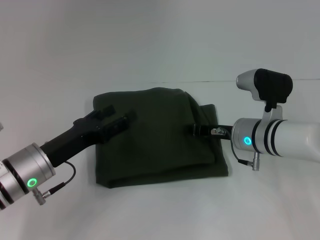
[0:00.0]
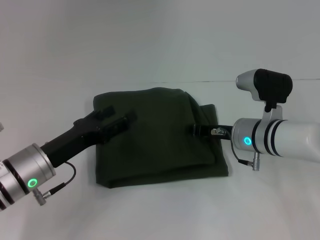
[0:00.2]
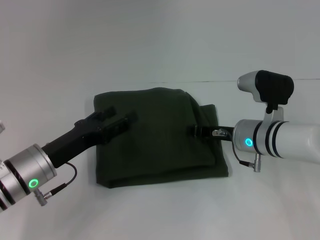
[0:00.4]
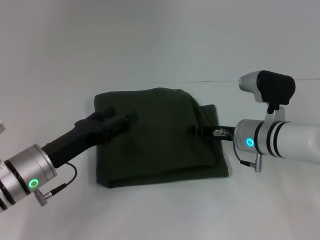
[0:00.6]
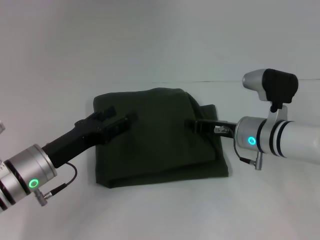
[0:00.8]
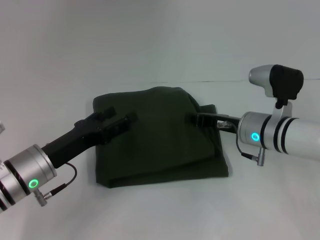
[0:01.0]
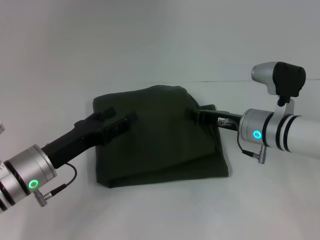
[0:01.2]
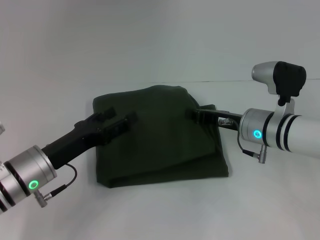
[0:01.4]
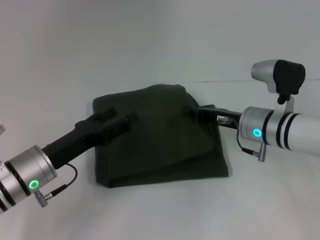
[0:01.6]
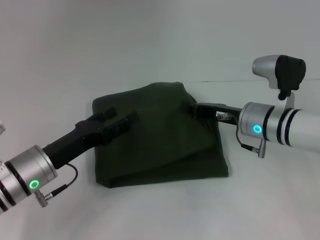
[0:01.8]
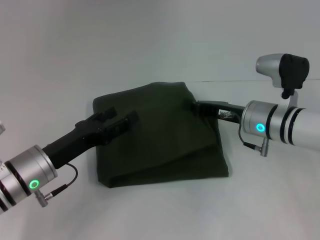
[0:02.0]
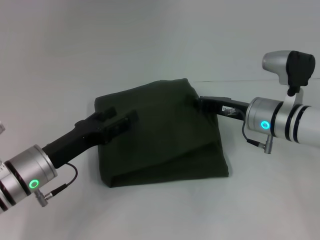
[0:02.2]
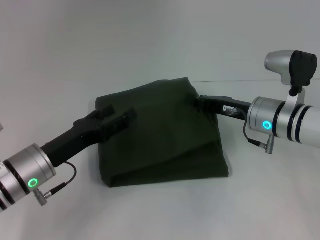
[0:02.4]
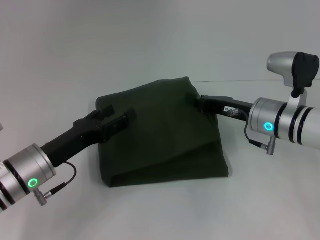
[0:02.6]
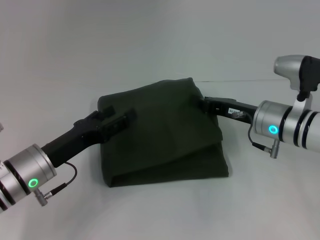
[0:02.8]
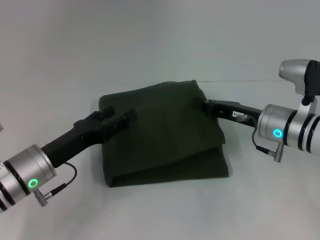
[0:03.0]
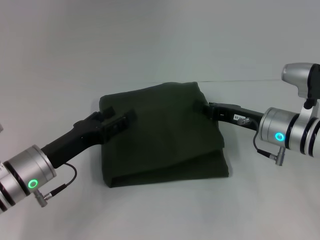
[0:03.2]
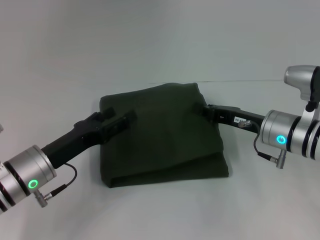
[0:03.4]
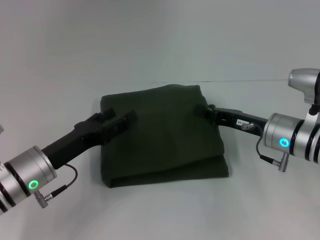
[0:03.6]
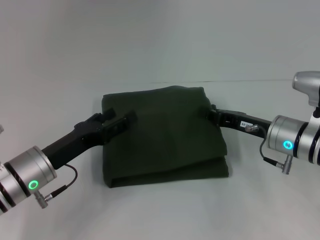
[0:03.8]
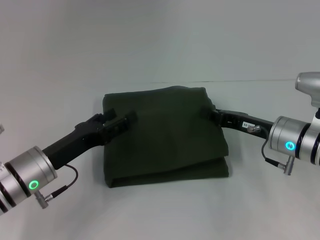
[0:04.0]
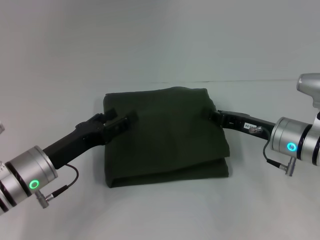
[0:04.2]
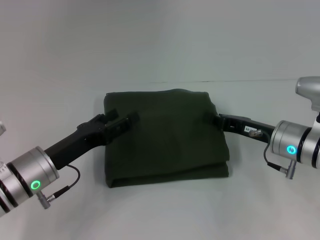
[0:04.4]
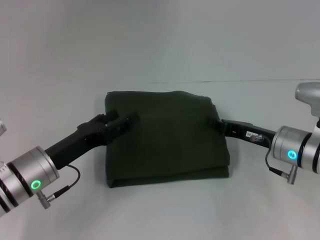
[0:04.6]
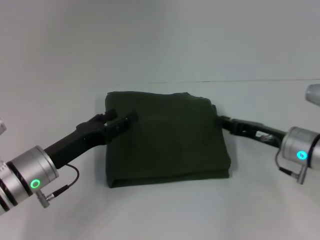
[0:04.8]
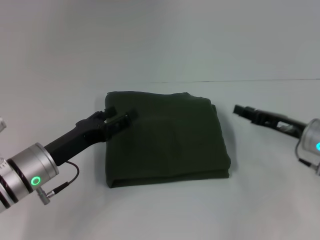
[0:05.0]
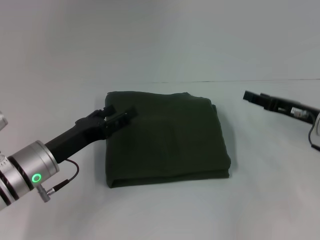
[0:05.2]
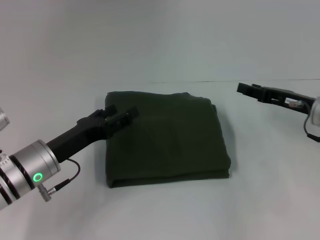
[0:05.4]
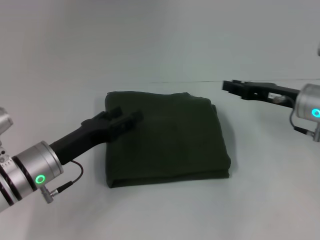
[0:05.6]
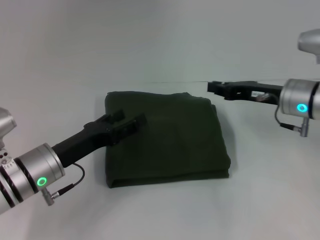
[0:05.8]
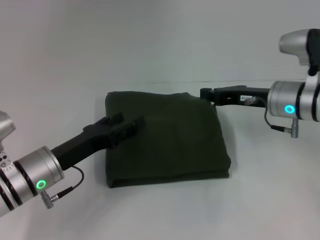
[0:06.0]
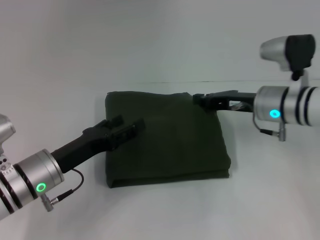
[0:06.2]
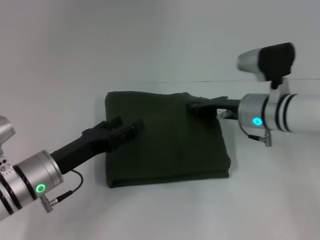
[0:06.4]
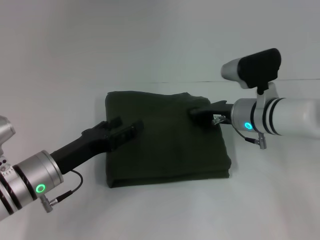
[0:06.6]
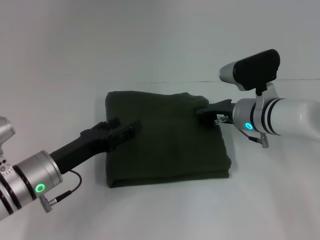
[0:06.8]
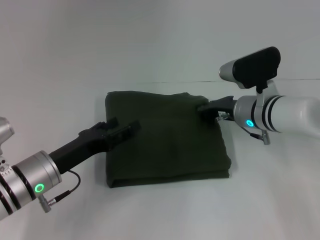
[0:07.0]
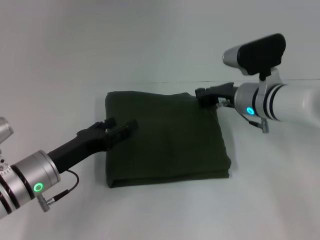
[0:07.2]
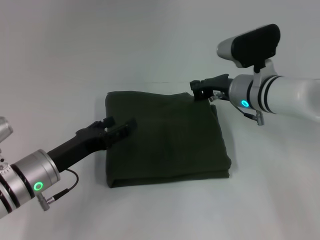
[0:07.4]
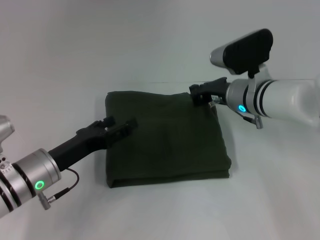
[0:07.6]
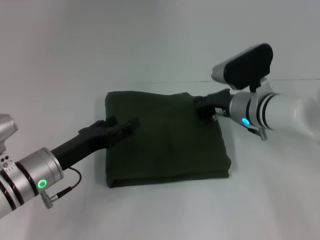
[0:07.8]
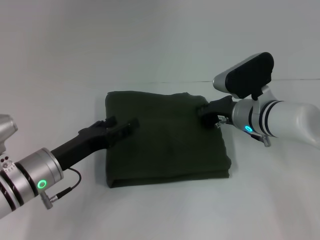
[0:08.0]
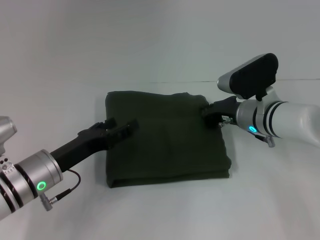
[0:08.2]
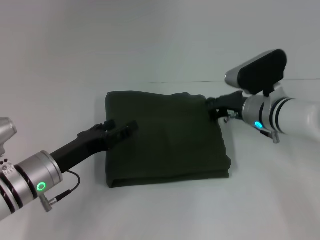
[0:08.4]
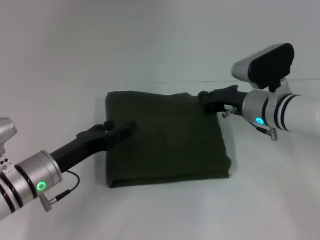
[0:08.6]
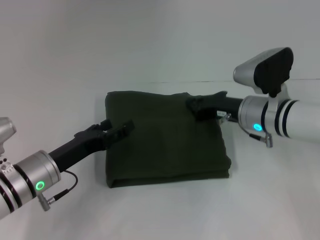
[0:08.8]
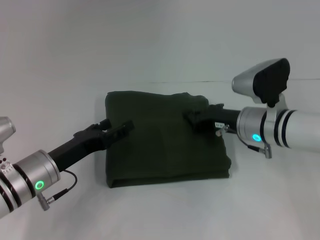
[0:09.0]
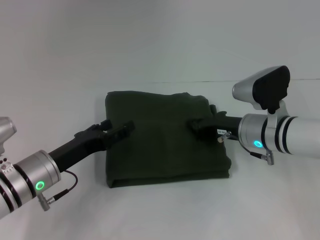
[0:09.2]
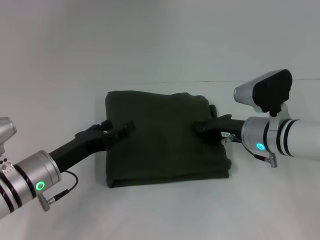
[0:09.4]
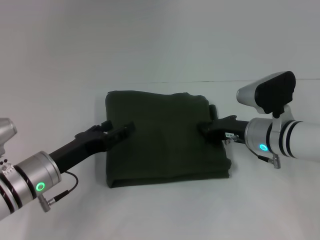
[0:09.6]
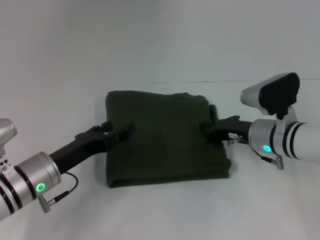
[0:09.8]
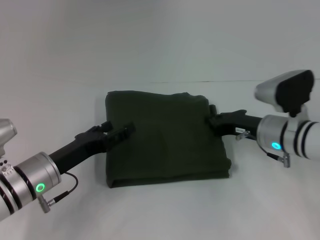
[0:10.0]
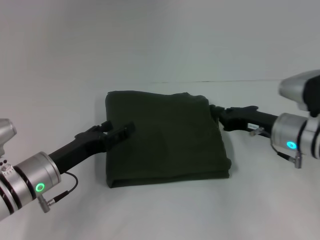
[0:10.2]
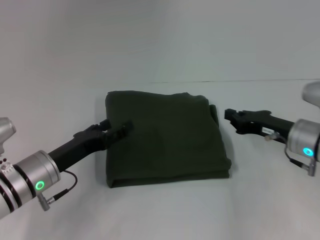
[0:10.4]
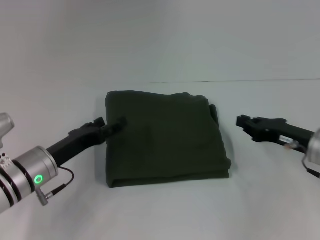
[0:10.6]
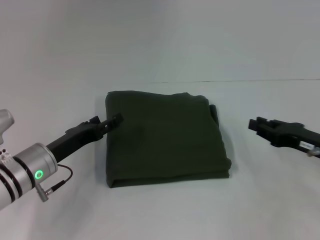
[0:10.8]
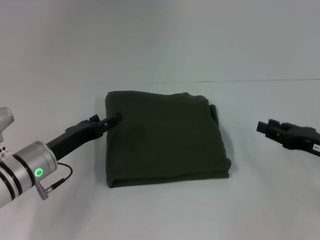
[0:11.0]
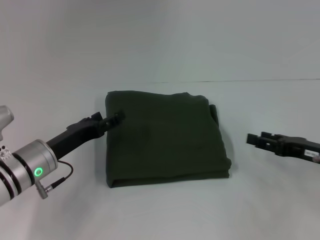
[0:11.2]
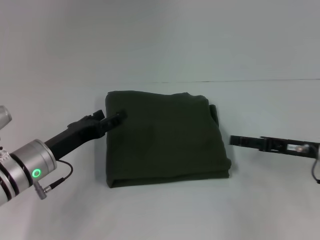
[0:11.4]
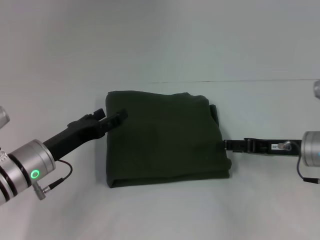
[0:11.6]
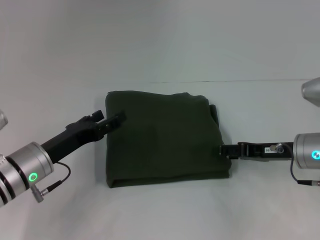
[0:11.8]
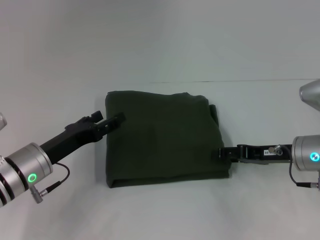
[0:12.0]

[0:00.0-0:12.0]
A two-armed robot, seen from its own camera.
0:00.0 to 0:03.0: The grippers stay close to where they were, moving slightly.
0:03.0 to 0:04.4: The grippers move only a little.
0:04.4 to 0:06.0: The right gripper heads upward, covering roughly 5 cm, travels to the right and back again, roughly 5 cm each way, and opens, then closes again.
0:06.0 to 0:07.6: The right gripper moves to the left, about 5 cm.
0:07.6 to 0:09.0: The right gripper changes place by some 5 cm.
0:09.0 to 0:10.4: The right gripper shifts approximately 5 cm to the right.
0:10.4 to 0:12.0: The right gripper opens.

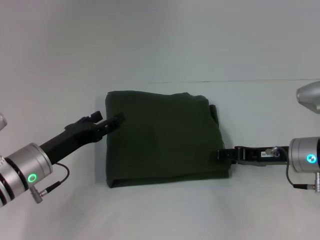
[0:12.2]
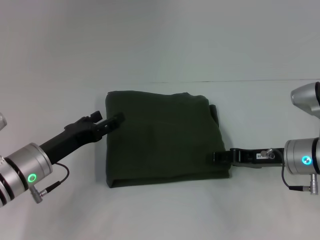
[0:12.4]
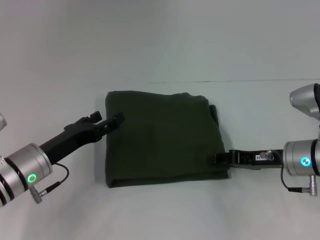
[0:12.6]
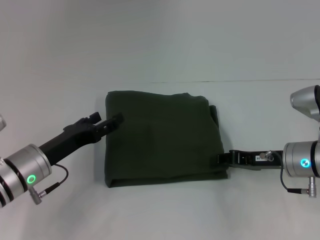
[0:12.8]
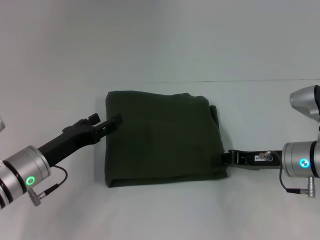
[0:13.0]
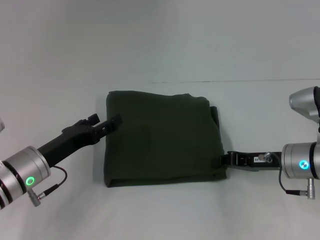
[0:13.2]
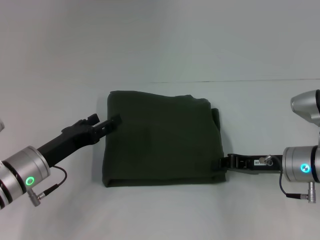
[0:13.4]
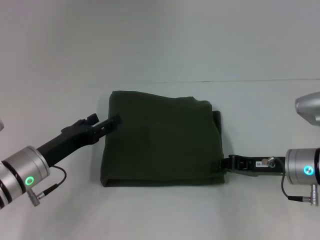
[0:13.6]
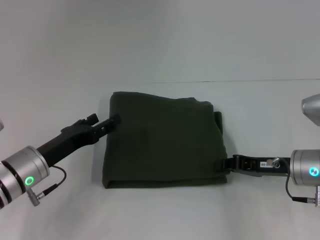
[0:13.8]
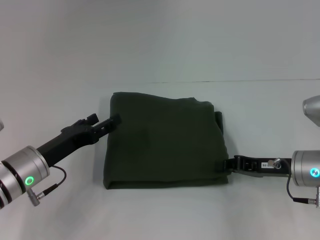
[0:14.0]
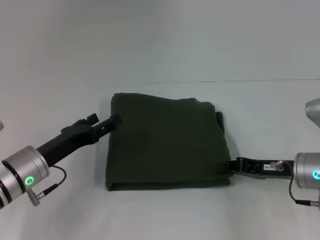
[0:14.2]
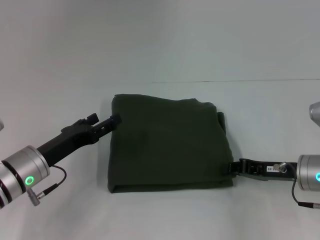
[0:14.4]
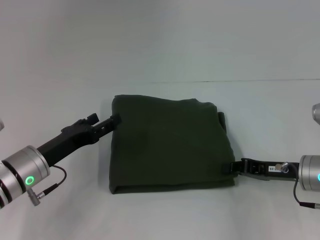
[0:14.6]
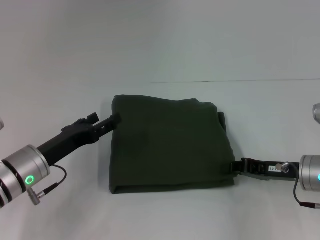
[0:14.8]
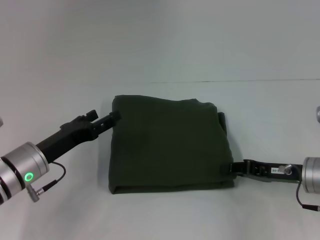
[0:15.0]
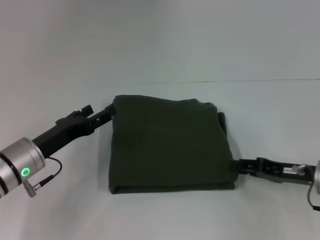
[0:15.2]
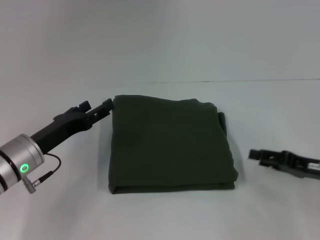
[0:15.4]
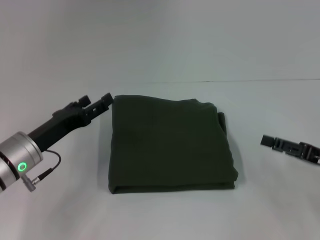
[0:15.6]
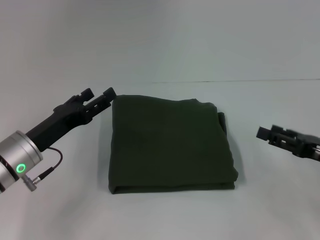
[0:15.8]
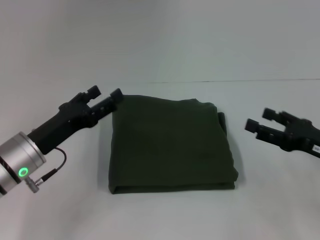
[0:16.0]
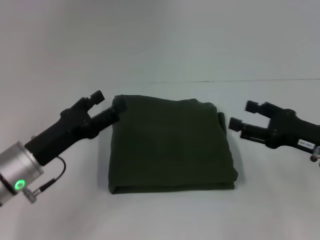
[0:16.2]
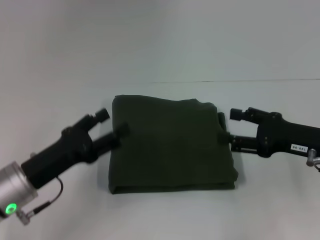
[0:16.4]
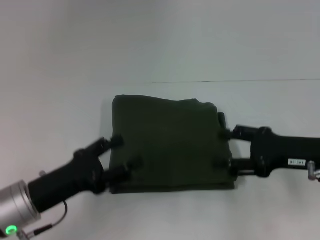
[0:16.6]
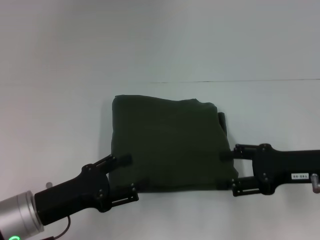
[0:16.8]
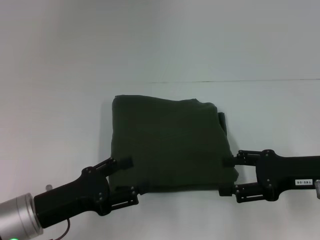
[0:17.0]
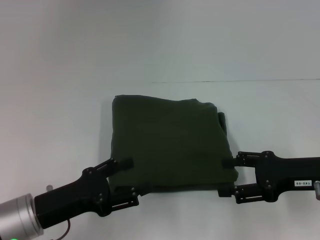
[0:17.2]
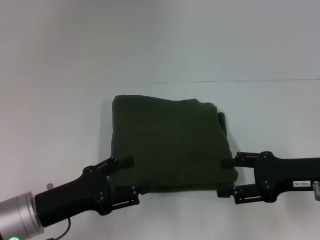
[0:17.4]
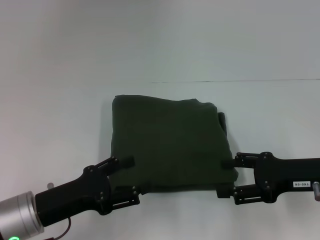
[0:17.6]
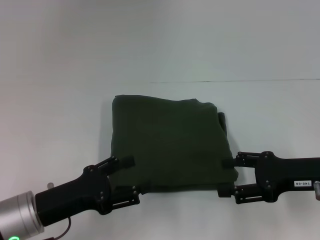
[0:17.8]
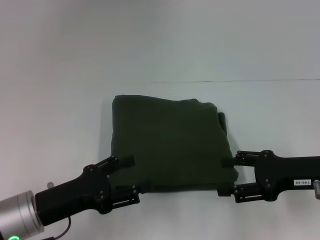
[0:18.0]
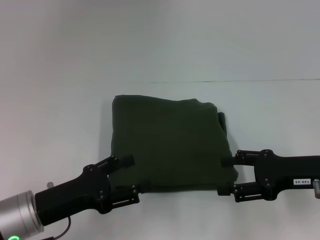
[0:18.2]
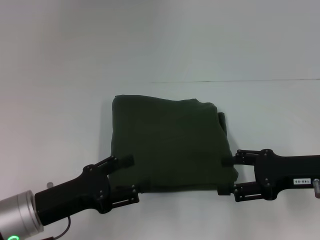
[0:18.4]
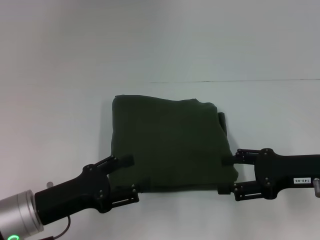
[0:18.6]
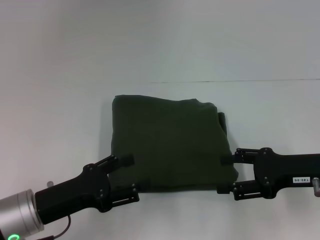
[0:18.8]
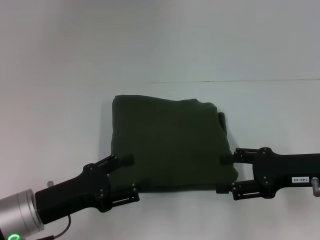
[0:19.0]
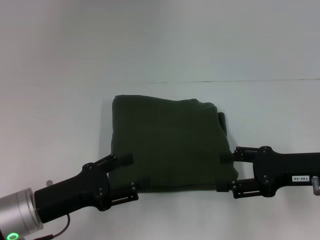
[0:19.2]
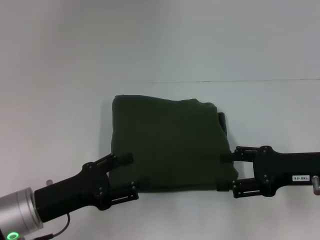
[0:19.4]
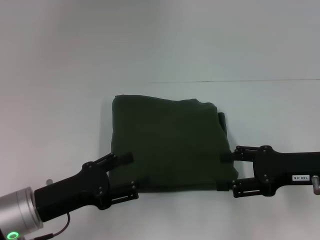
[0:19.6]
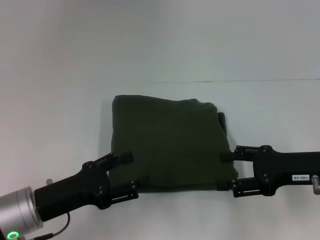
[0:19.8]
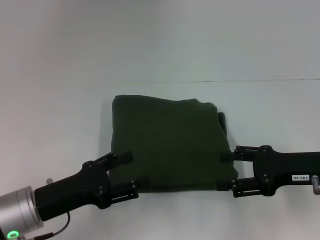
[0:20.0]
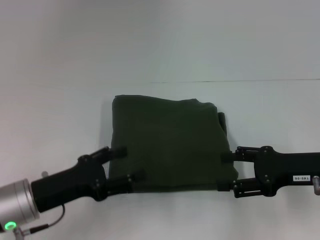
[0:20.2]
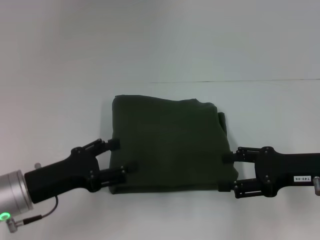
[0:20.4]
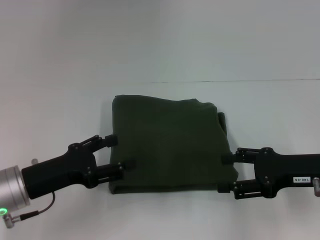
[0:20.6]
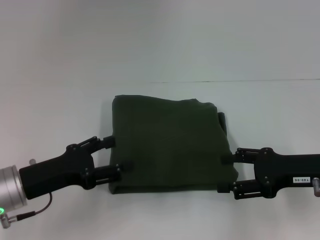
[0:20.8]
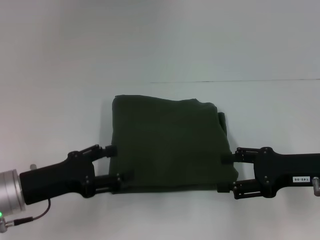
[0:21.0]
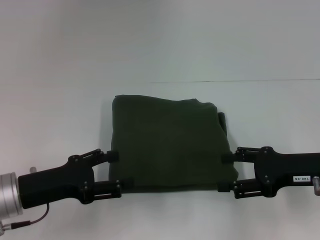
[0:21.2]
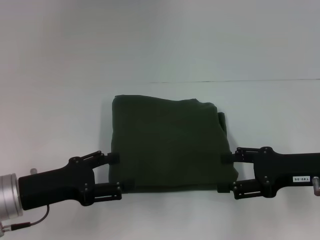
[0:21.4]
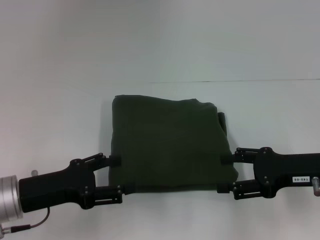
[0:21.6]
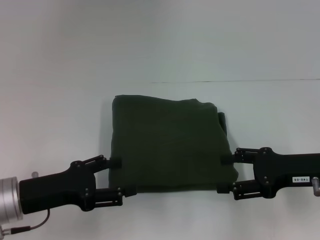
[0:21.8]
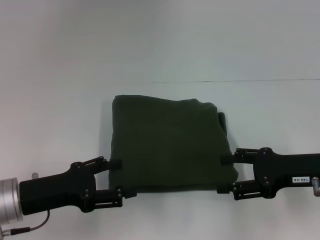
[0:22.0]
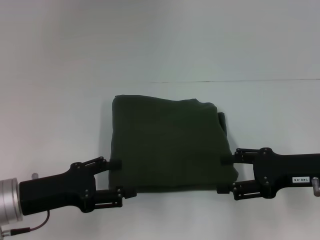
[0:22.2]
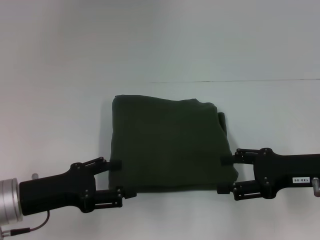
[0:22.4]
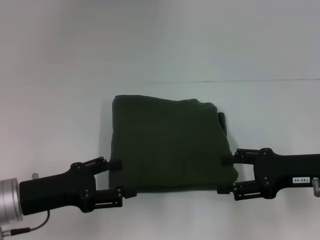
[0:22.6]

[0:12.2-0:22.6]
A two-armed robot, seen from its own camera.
0:12.2 to 0:13.6: The right gripper closes up.
0:13.6 to 0:15.2: There are only small adjustments of the grippers.
0:15.2 to 0:16.6: The left gripper moves backward, approximately 5 cm. The right gripper moves upward, roughly 5 cm, and opens up.
0:16.6 to 0:18.2: The grippers make only small movements.
0:18.2 to 0:19.6: Both grippers stay about where they are.
0:19.6 to 0:21.2: There are only small adjustments of the grippers.
0:21.2 to 0:22.6: Both grippers stay put.
